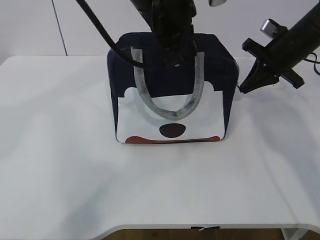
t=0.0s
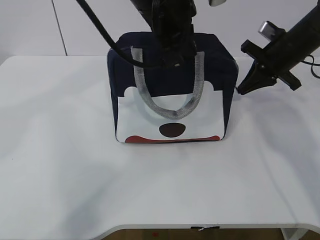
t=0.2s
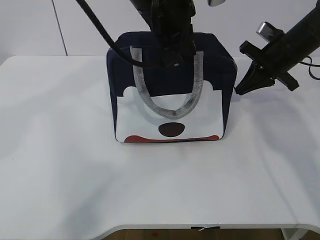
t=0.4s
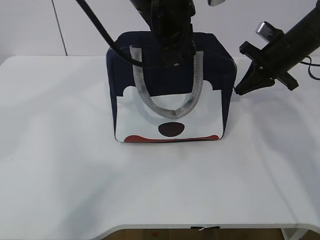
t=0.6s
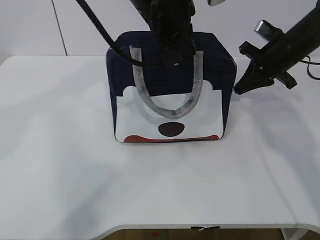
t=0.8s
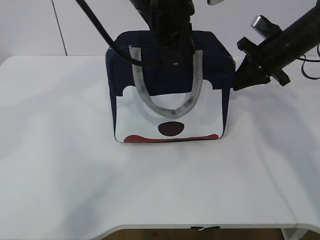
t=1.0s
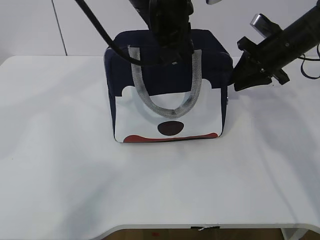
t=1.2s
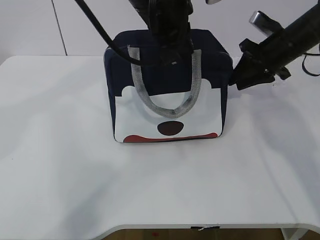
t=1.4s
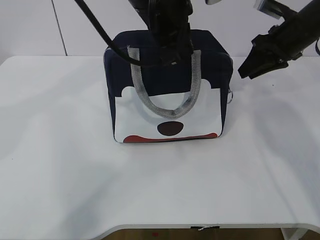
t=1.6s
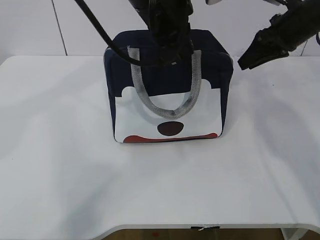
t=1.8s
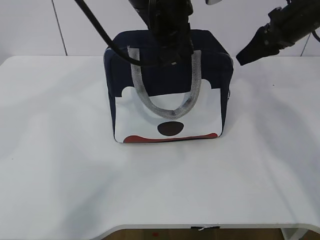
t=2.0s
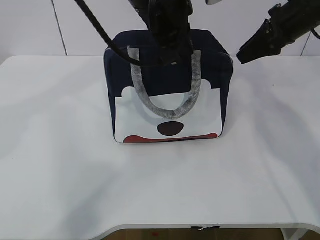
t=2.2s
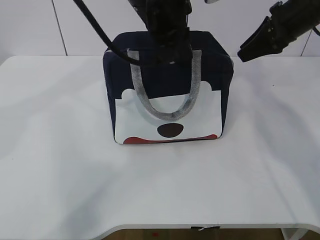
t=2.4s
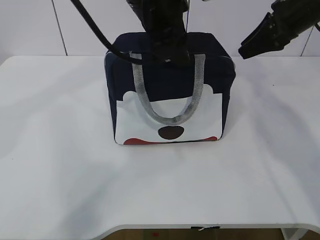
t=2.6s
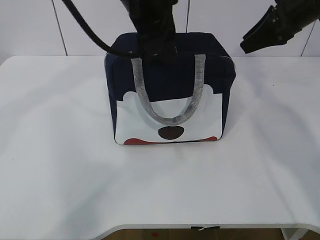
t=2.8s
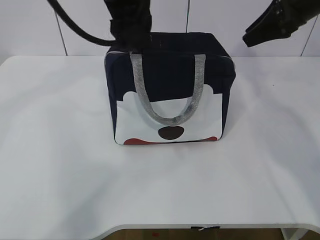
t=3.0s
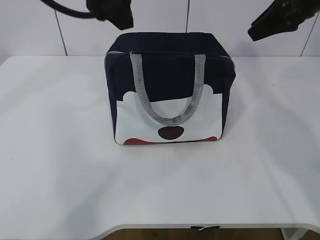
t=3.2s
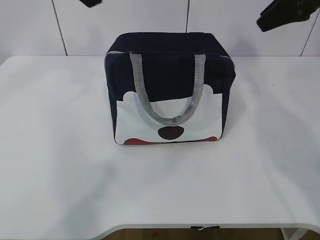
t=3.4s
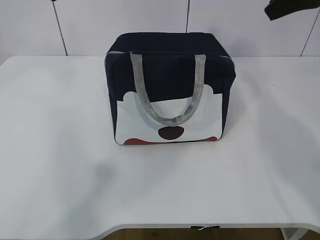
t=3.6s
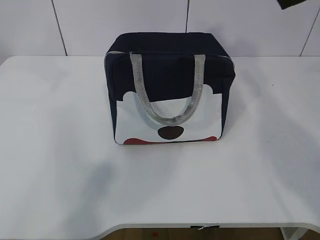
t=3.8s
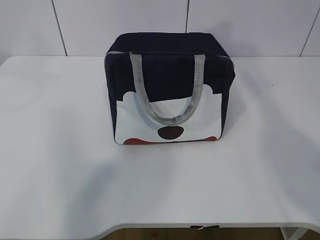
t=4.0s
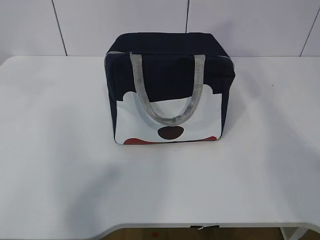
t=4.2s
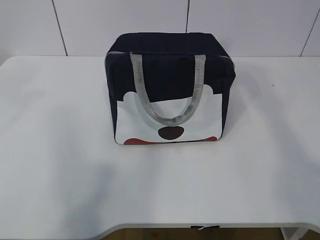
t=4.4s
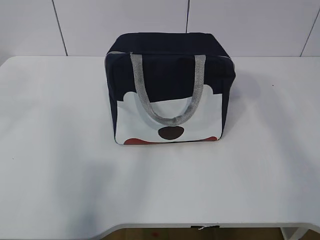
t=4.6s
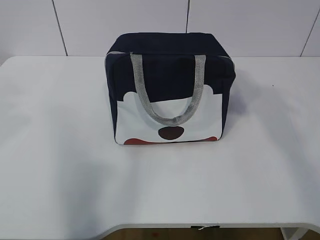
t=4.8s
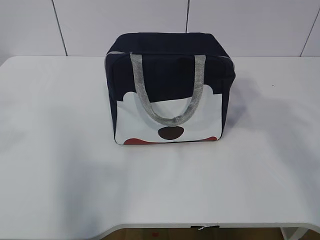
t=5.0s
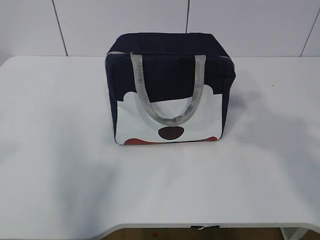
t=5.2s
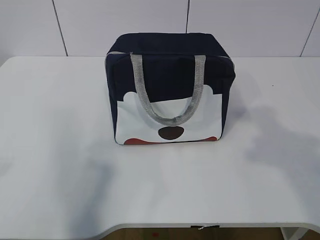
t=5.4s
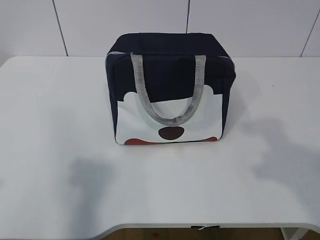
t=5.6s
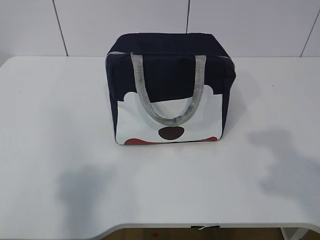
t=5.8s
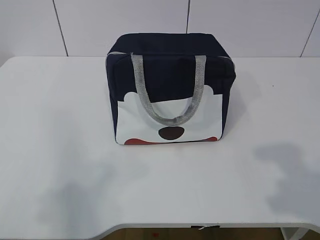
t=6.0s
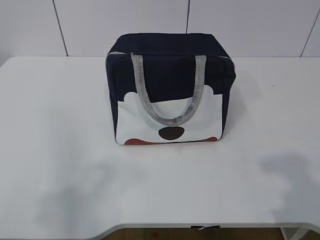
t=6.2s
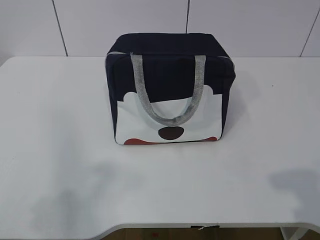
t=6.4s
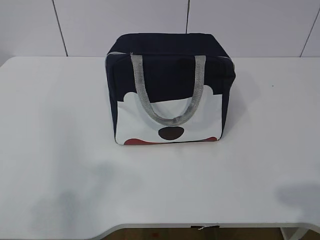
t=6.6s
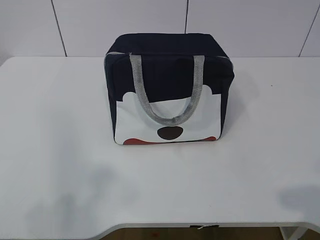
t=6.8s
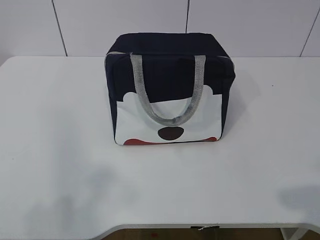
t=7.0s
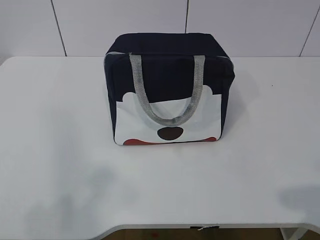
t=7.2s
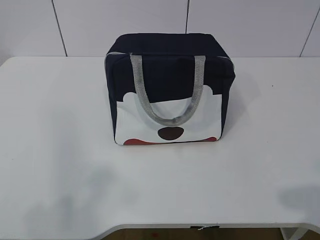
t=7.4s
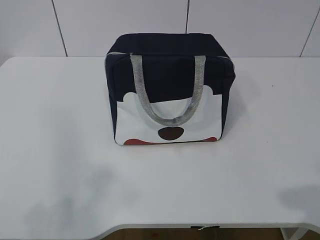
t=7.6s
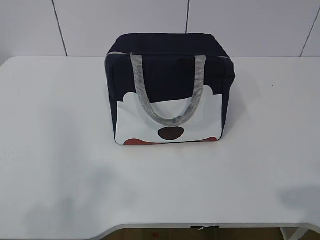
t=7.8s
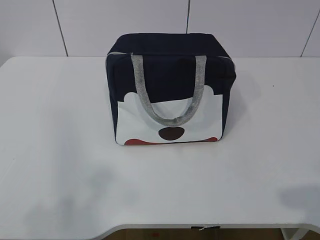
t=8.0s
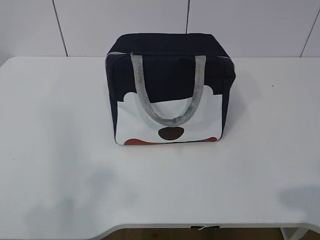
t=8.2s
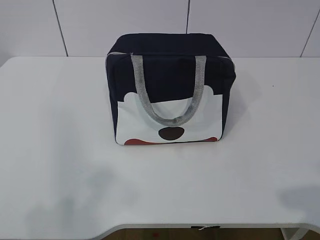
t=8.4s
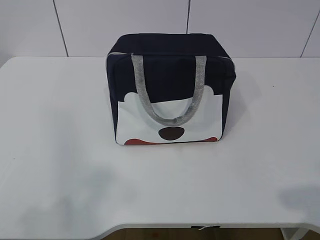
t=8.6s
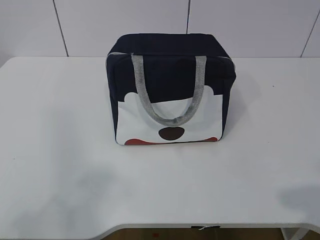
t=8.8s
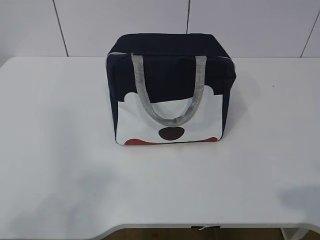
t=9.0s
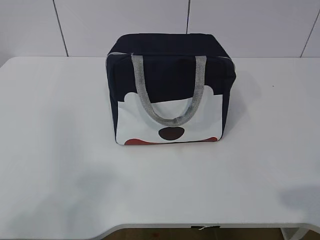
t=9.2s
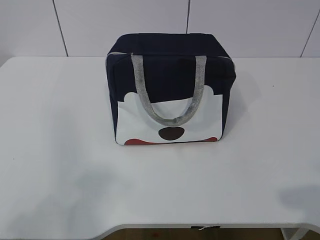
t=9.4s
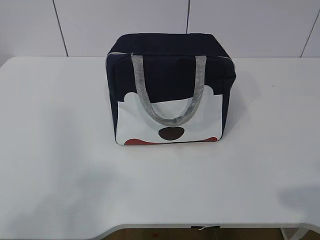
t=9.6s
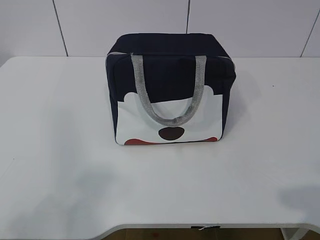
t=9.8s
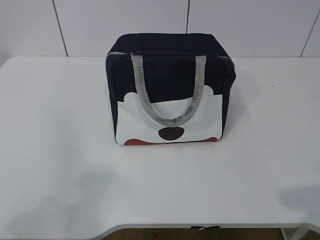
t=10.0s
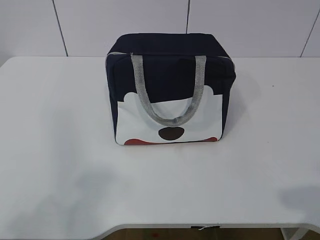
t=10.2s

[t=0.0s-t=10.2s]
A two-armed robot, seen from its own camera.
t=0.0s to t=1.4s: The right gripper opens up.
t=1.4s to t=3.0s: The left gripper ends up roughly 5 cm from where it was, and opens up. The right gripper goes roughly 10 cm upward.
t=3.0s to t=4.4s: The left gripper travels to the left, backward and upward by approximately 25 cm, while the right gripper is displaced backward and upward by approximately 20 cm.
t=4.4s to t=5.8s: Both grippers move backward and downward, approximately 20 cm.
t=5.8s to t=7.2s: The left gripper shifts some 5 cm backward. The right gripper shifts roughly 10 cm backward and downward.
t=7.2s to t=8.8s: The grippers move only a little.

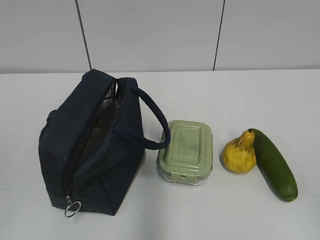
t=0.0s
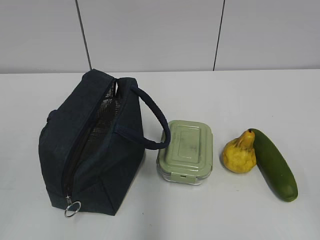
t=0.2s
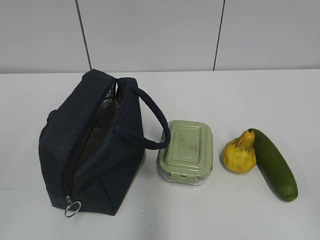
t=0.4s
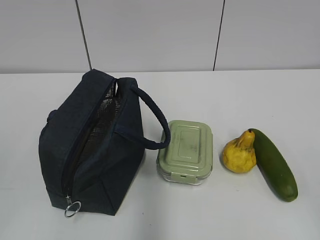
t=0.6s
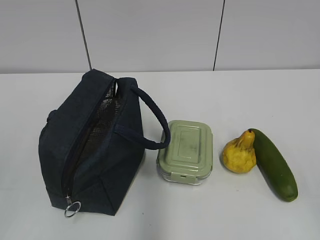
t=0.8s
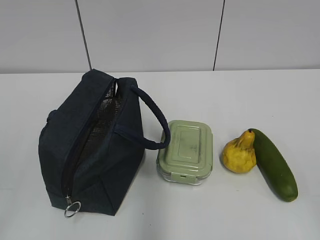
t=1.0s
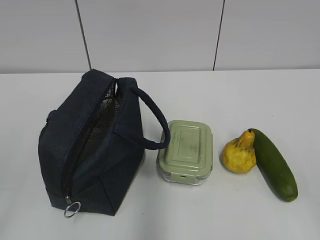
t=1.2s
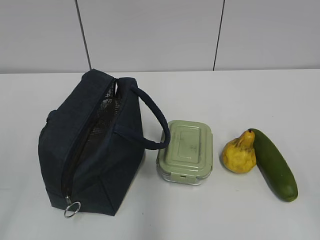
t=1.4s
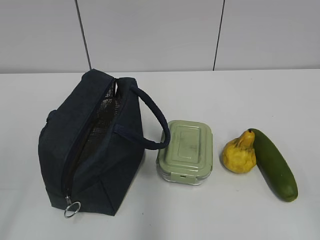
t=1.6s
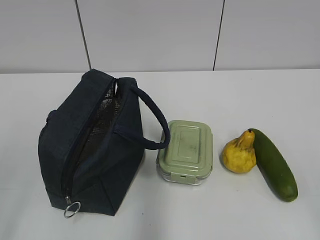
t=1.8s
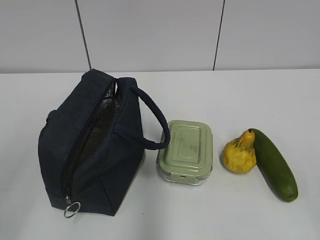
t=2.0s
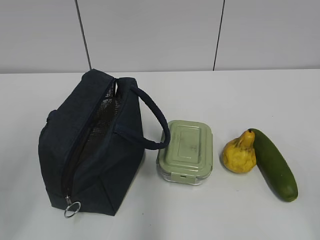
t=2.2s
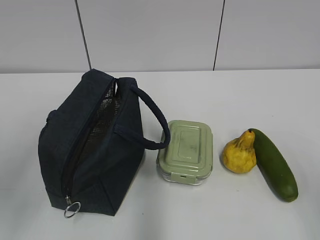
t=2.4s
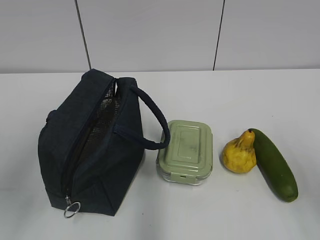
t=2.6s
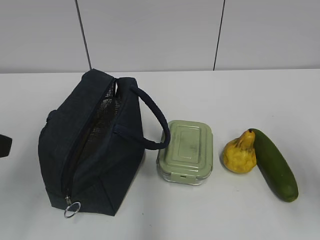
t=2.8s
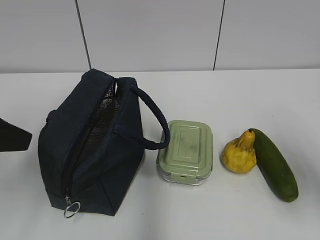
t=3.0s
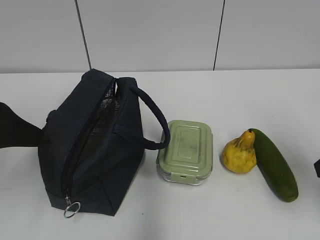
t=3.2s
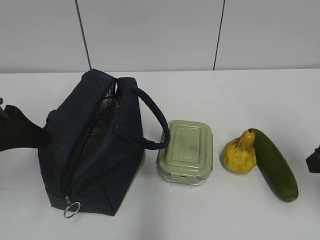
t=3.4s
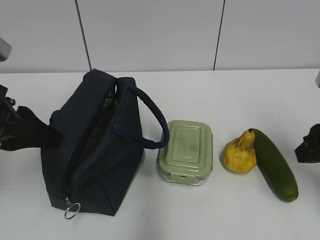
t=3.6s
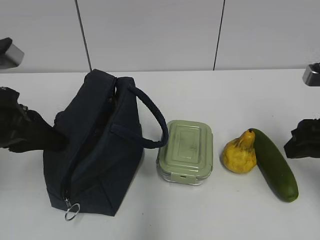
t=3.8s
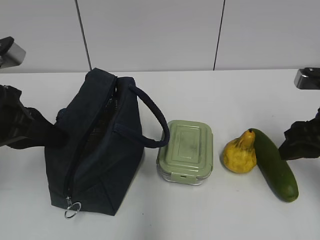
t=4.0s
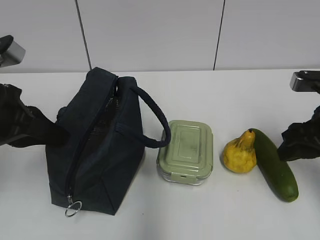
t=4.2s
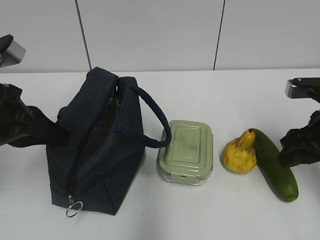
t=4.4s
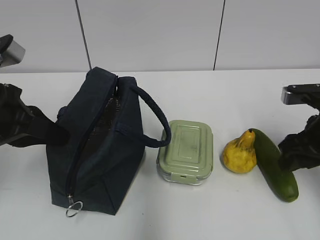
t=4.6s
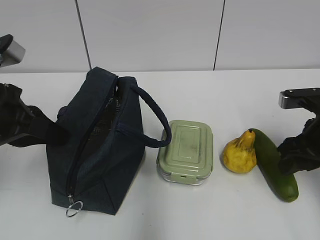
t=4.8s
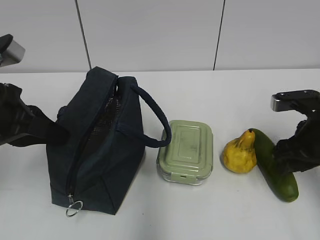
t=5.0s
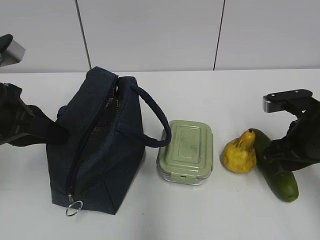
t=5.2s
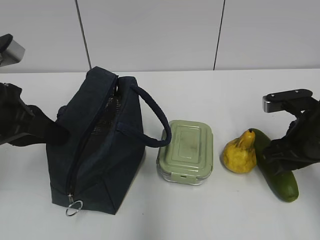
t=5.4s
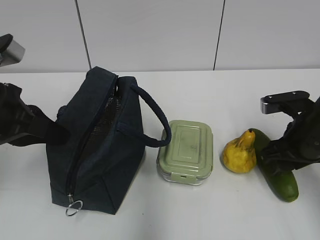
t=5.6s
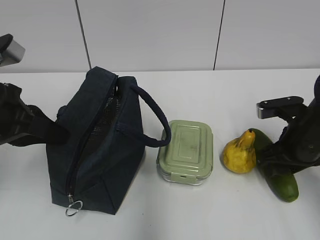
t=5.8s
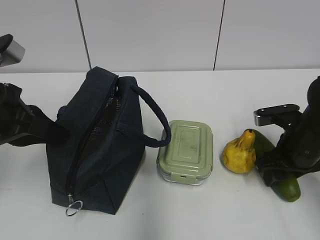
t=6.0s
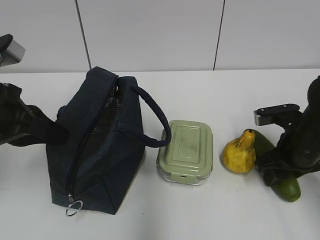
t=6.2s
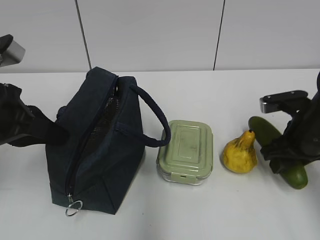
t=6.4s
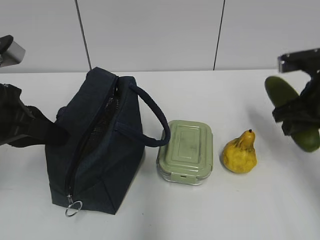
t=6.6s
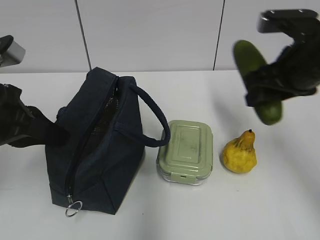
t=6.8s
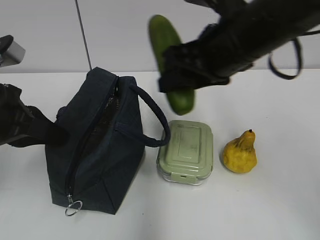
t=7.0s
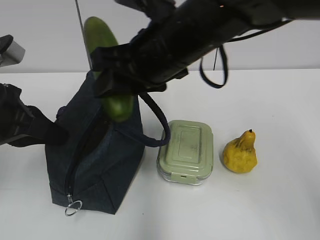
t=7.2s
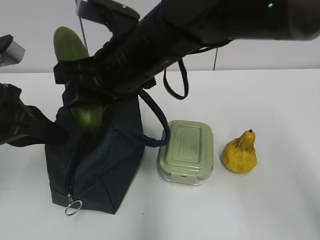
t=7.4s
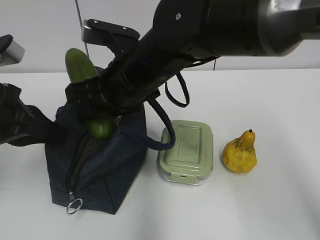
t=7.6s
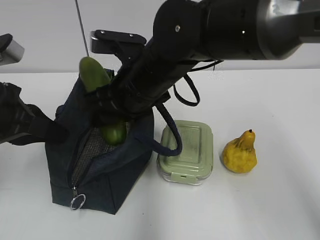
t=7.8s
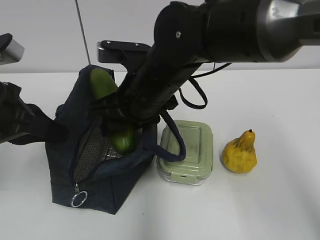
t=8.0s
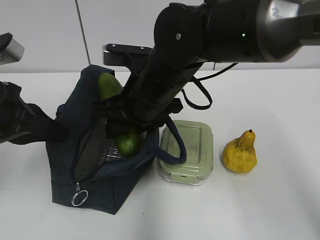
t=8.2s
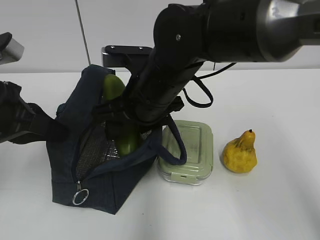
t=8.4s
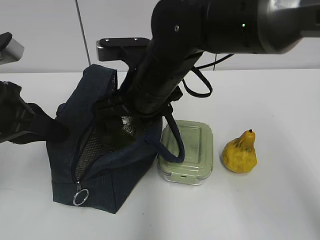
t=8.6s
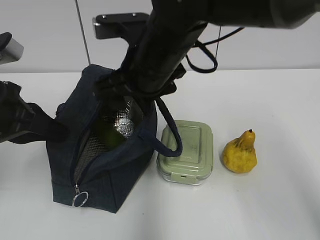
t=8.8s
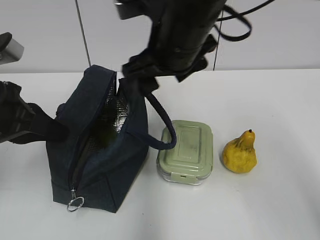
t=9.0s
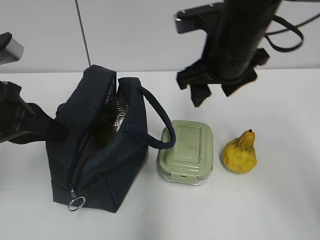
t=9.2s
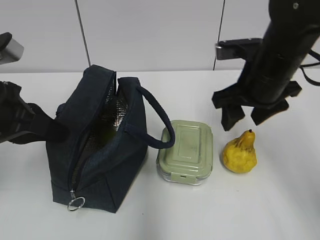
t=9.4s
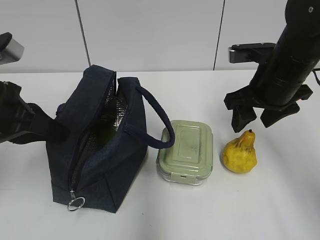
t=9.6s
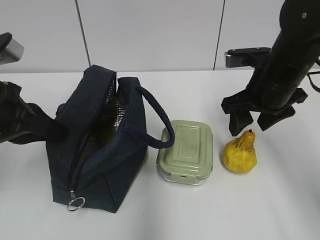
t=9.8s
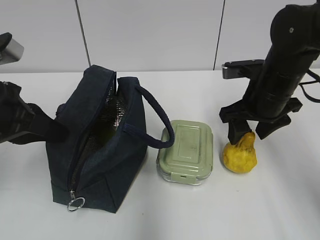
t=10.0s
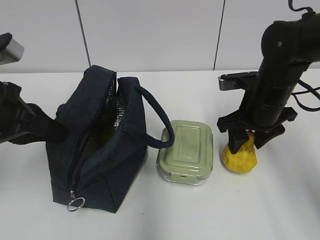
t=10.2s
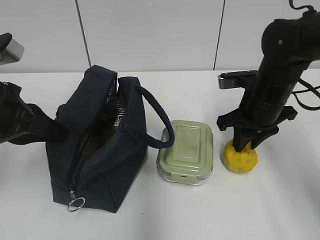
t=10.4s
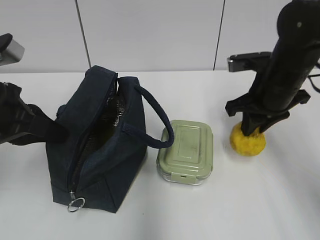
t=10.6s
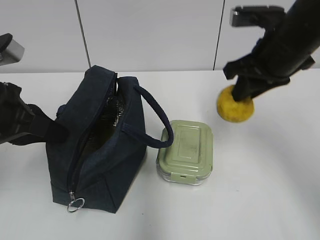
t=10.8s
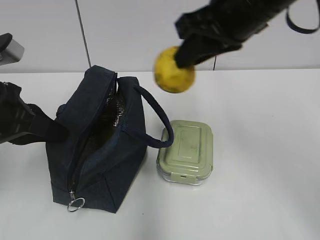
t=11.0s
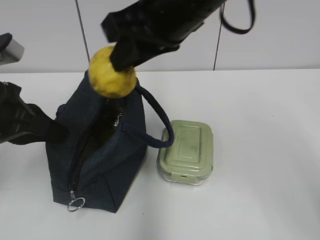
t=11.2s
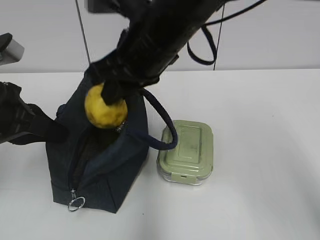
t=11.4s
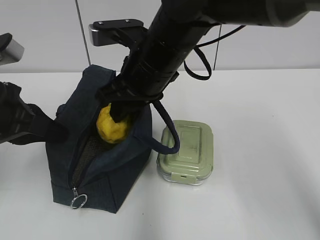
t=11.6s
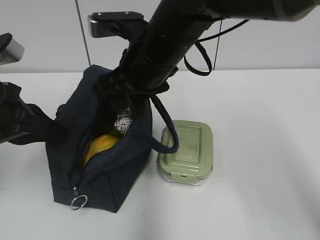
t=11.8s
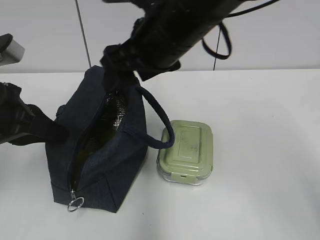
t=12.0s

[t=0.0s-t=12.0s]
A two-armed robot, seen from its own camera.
Step, t=0.0s to t=3.8s: Grab the lunch bag with your left hand.
Step, t=4.0s to t=6.2s: Grab the cucumber with your right hand.
Step, t=6.4s to t=8.6s: Place it into the bag with your right hand.
Step, t=9.0s to t=10.2s: Grab the pear with your right hand.
Step, t=10.6s to t=11.6s: Place it into the bag with your right hand.
t=1.6s to t=3.0s: Both grippers move forward, roughly 20 cm.
t=3.0s to t=4.4s: The left gripper heads forward, covering about 5 cm, and closes; the right gripper moves forward and downward, roughly 10 cm.
t=4.4s to t=6.0s: The right gripper is displaced downward by approximately 5 cm.
t=6.0s to t=7.6s: The right gripper travels to the left and upward by approximately 30 cm.
t=7.6s to t=9.0s: The right gripper moves to the right and upward, roughly 10 cm.
t=9.0s to t=10.4s: The right gripper heads to the right and downward, covering roughly 20 cm, and closes its fingers.
t=10.4s to t=12.0s: The right gripper shifts about 20 cm to the left and upward, and opens its fingers.
